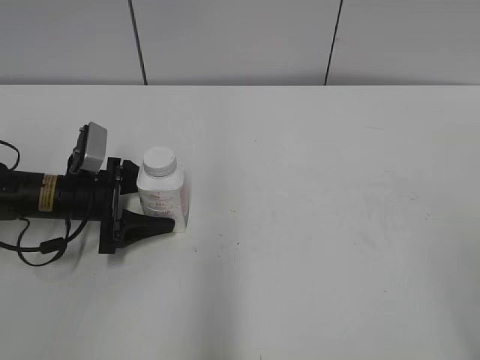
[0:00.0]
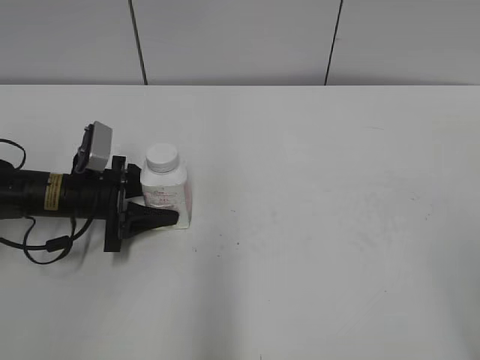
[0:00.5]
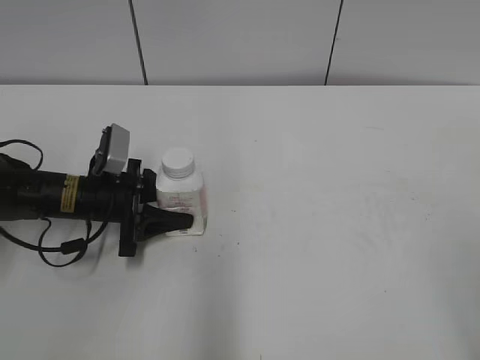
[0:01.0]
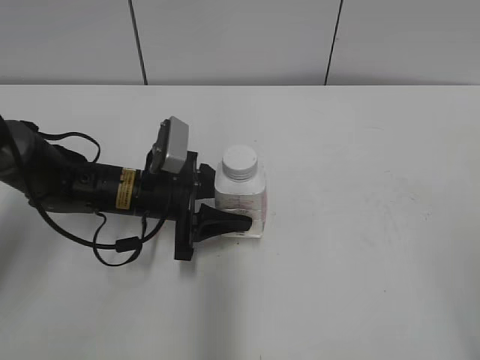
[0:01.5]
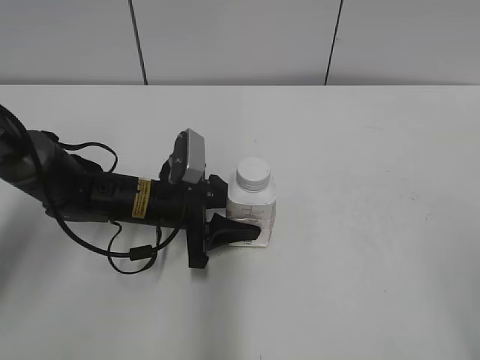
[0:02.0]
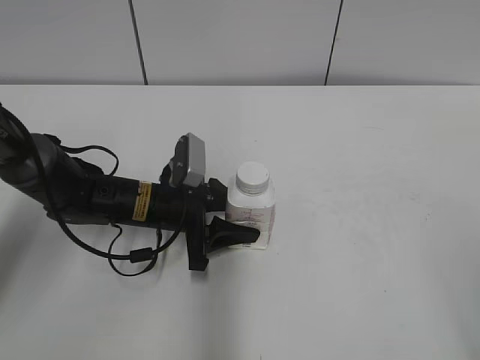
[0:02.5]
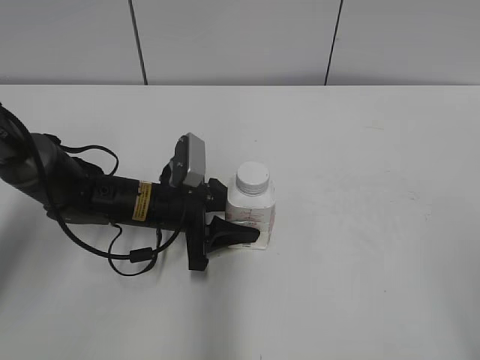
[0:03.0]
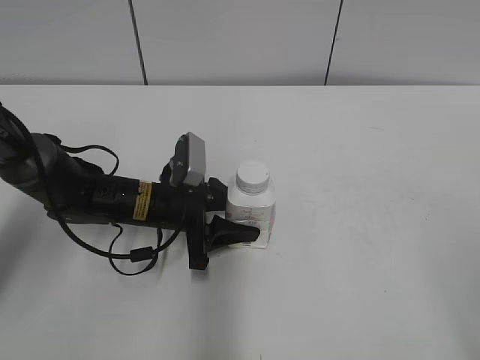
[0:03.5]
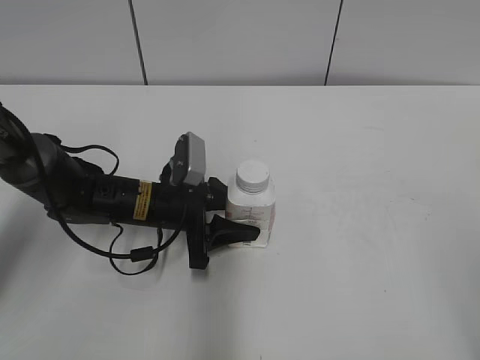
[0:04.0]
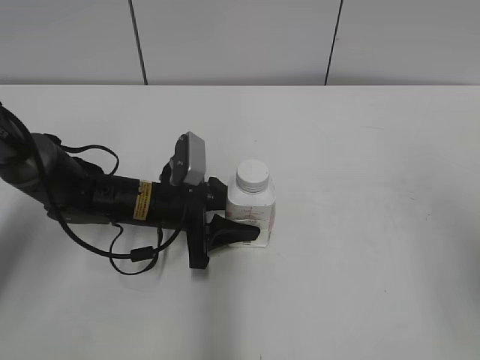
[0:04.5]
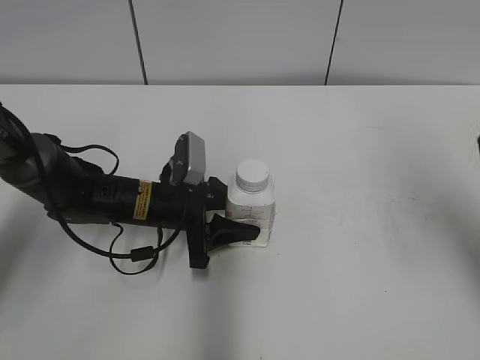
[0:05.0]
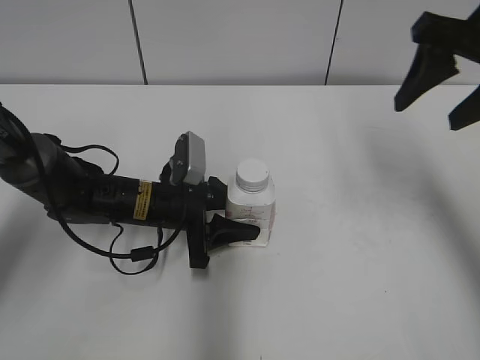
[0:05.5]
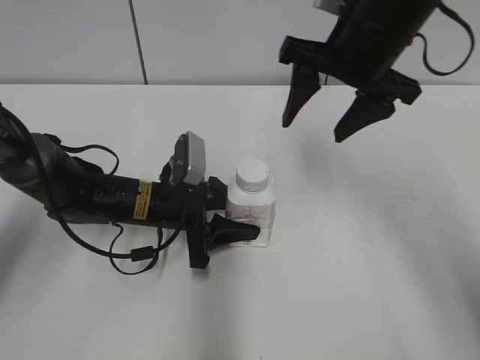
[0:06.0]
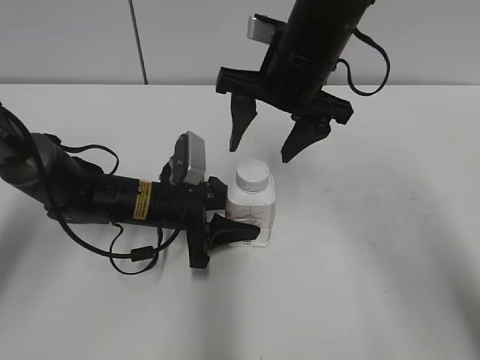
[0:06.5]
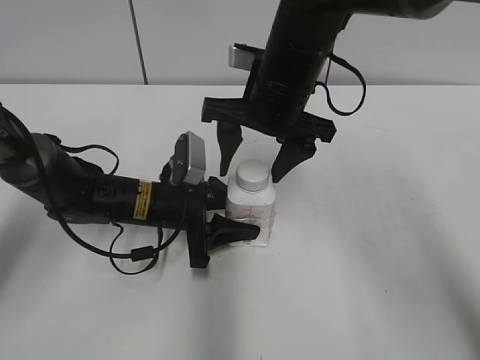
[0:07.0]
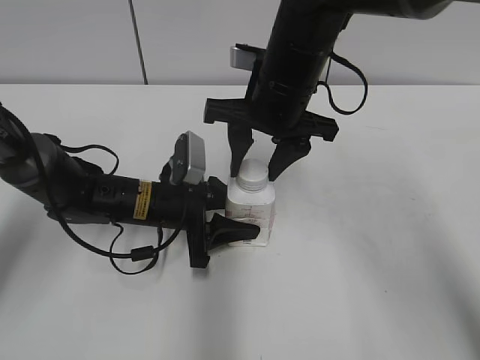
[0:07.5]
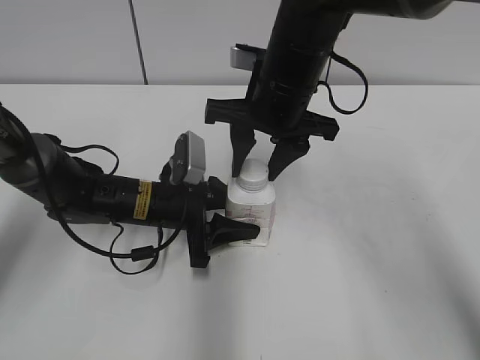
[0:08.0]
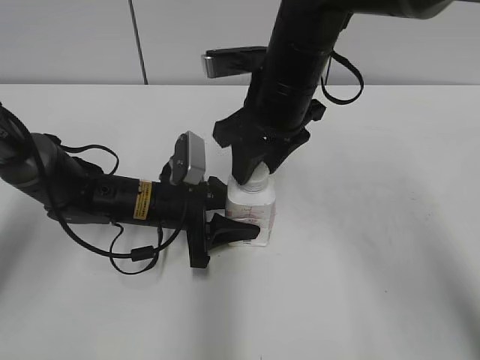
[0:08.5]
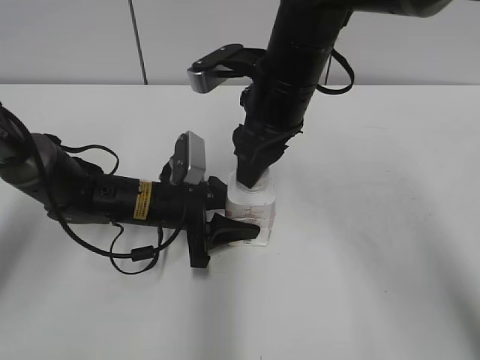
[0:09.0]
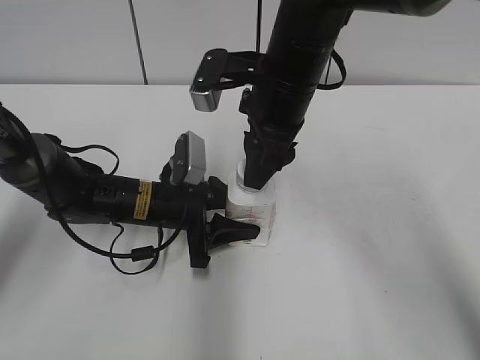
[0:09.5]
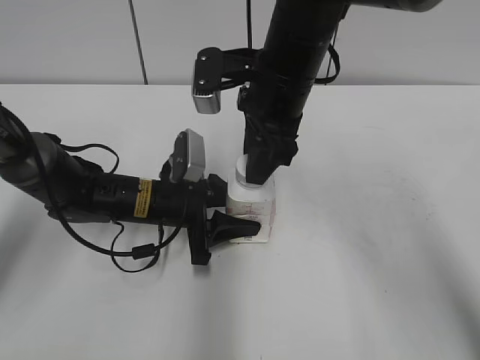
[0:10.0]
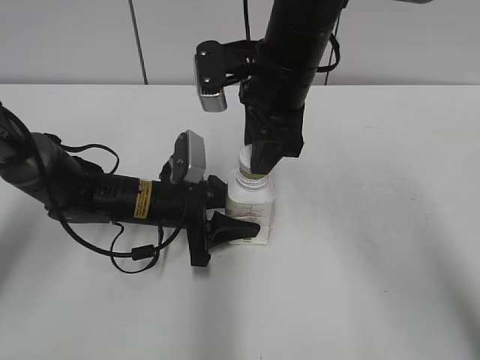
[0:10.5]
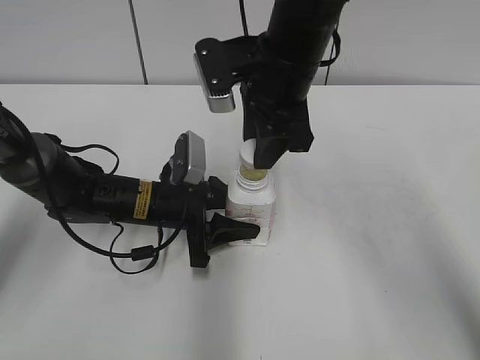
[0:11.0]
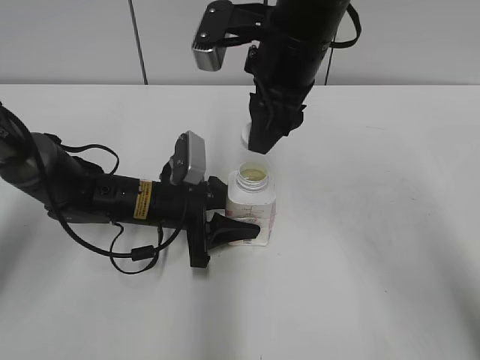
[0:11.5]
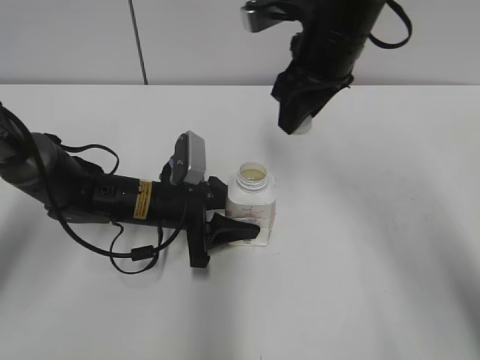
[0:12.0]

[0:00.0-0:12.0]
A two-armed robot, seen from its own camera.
Step, 0:01.0 to 0:03.0: Lift the bottle and move it to the center of the table with the left gripper.
Step, 0:03.5 to 0:11.0: Unscrew the bottle cap with the right gripper while holding the bottle with the left gripper.
0:00.0 to 0:02.0: The left gripper travels to the right by roughly 10 cm, and closes up.
0:02.0 to 0:04.0: Neither gripper changes place.
0:04.0 to 0:06.0: The right gripper travels forward and to the left by some 40 cm.
0:06.0 to 0:08.0: The right gripper heads to the left and downward, covering approximately 10 cm, and closes up.
0:10.0 to 0:12.0: The right gripper changes place by about 5 cm.

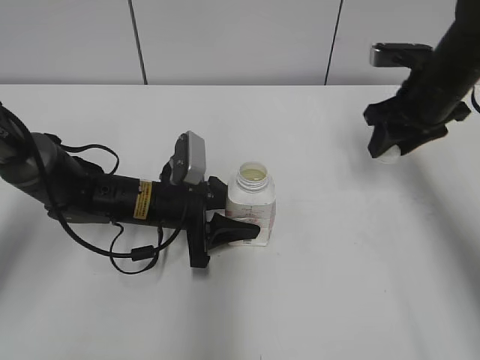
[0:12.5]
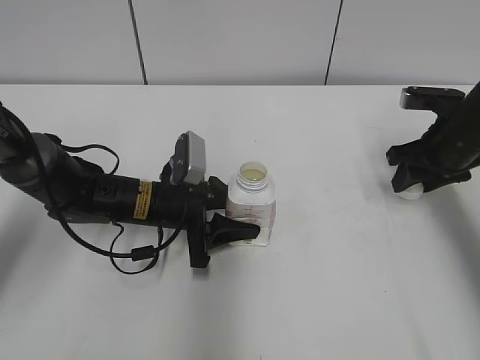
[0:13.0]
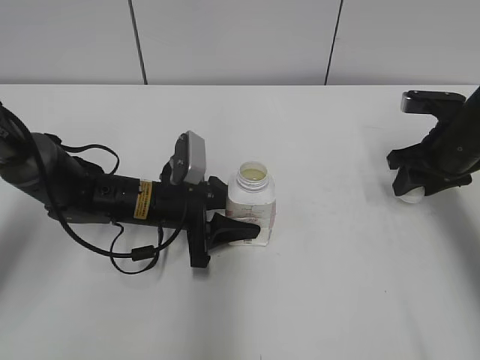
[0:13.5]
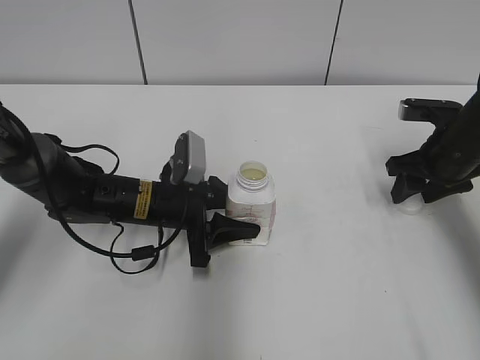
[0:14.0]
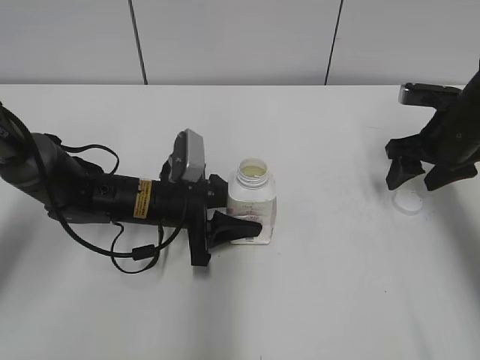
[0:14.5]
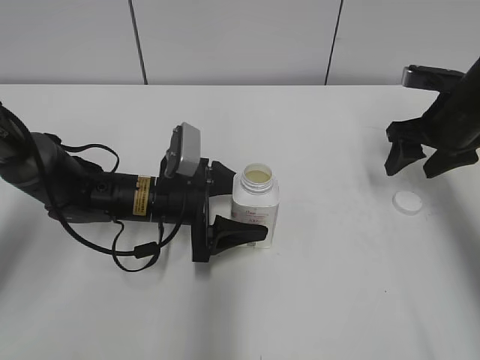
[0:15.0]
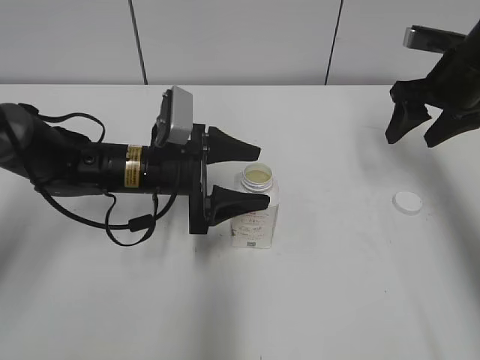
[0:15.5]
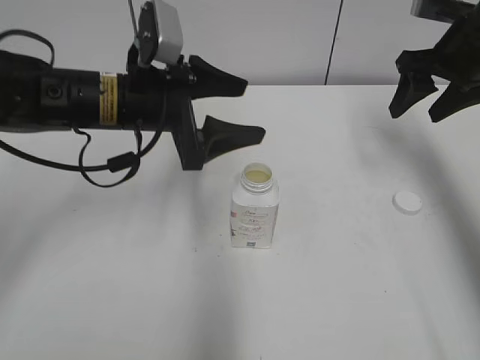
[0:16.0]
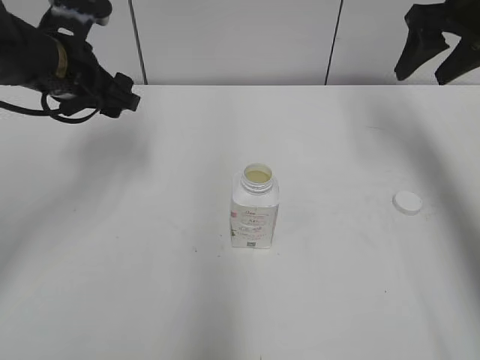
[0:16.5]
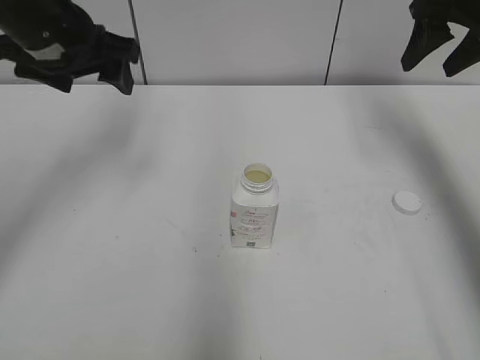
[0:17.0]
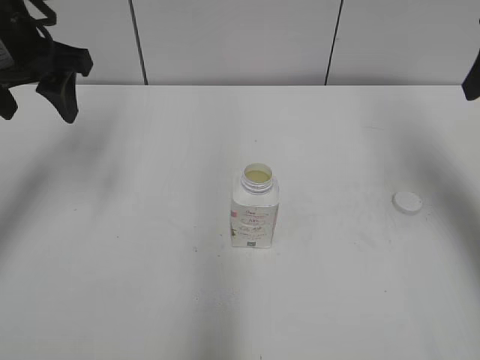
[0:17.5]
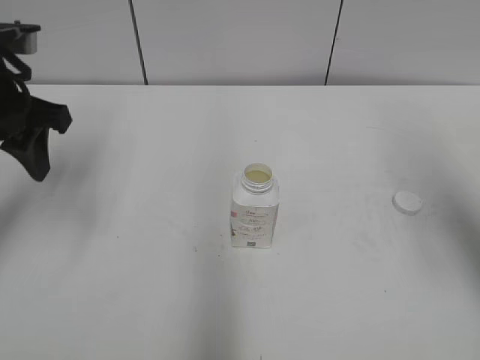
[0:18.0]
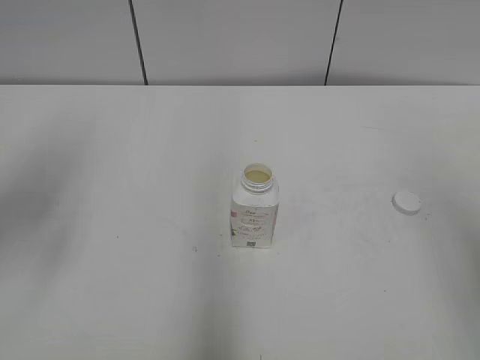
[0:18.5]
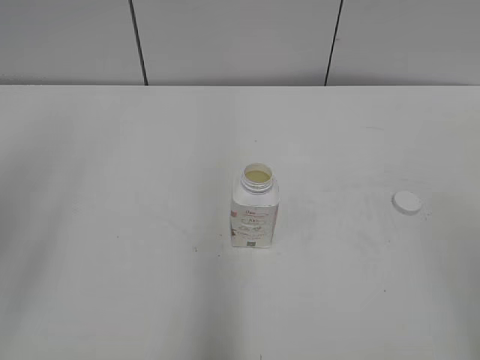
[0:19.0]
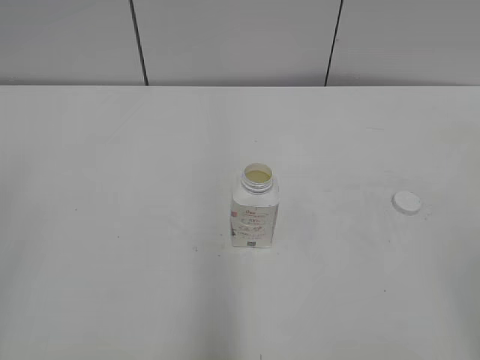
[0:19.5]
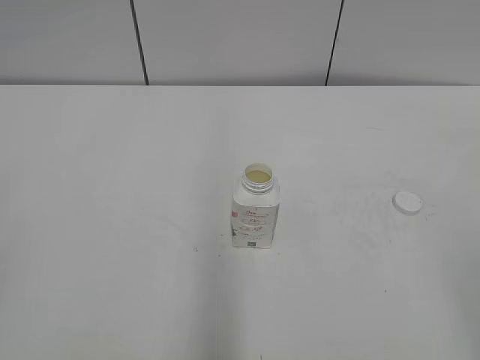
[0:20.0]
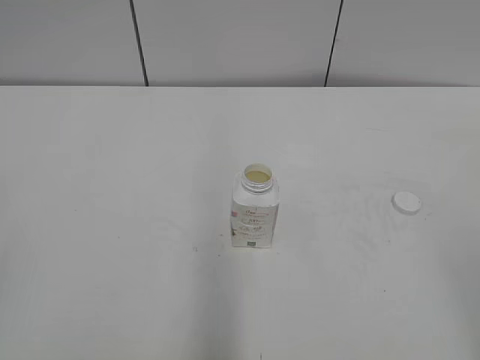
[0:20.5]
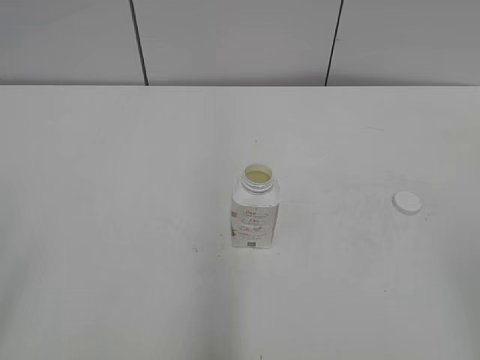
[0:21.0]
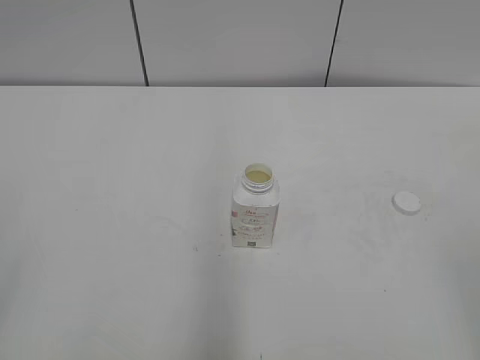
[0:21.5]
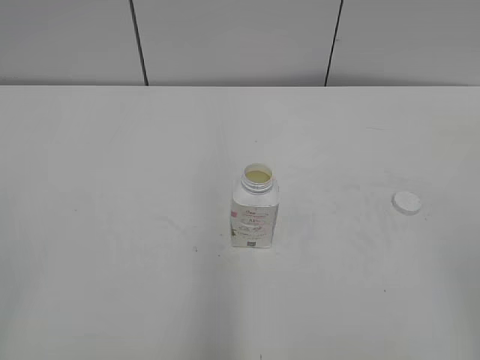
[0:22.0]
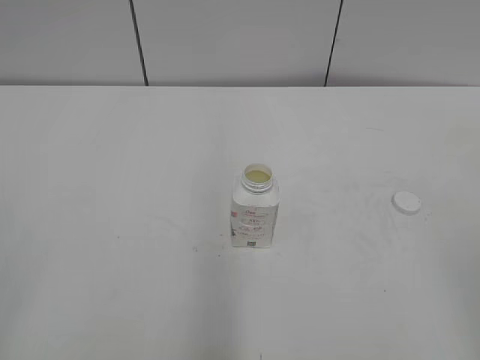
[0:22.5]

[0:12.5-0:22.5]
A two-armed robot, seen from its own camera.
Step, 0:12.5 to 0:14.0: Place the bottle cap on the table with the right gripper.
Step, 0:14.5 to 0:15.5: Place the bottle on the table with the left gripper.
0:12.5 to 0:14.5: The right gripper moves about 5 cm, and opens up.
0:14.5 to 0:16.5: The right gripper is displaced upward by about 15 cm, while the left gripper shifts about 20 cm upward and to the left, and opens its fingers.
0:16.5 to 0:18.5: The left gripper heads backward, upward and to the left, covering about 20 cm, and closes; the right gripper moves backward, about 30 cm.
0:18.5 to 0:20.5: The left gripper is displaced backward by approximately 25 cm.

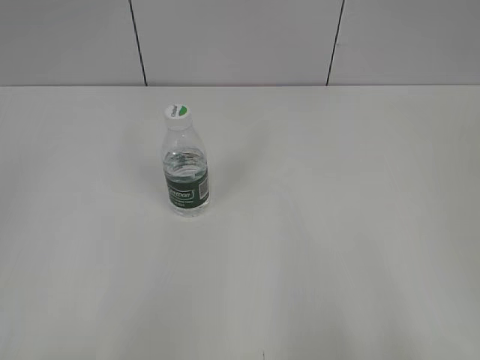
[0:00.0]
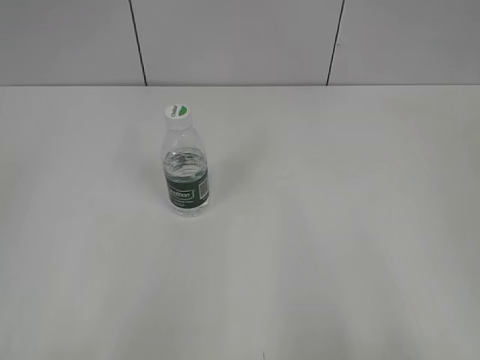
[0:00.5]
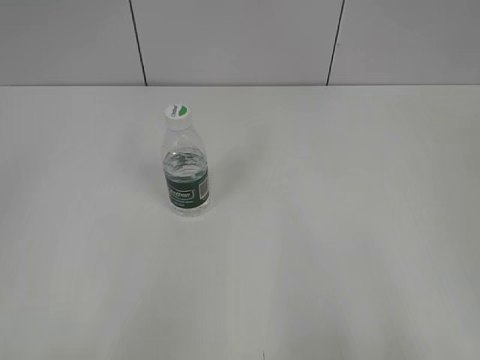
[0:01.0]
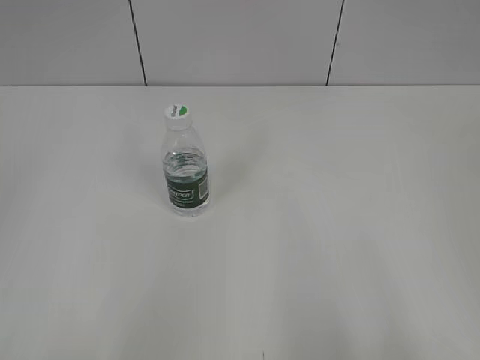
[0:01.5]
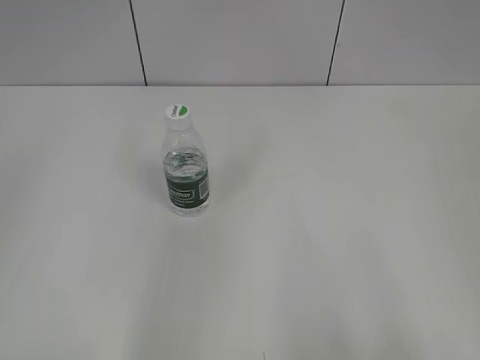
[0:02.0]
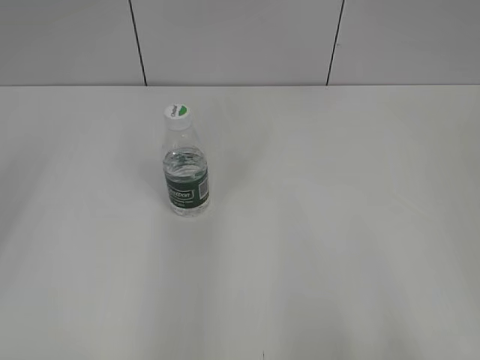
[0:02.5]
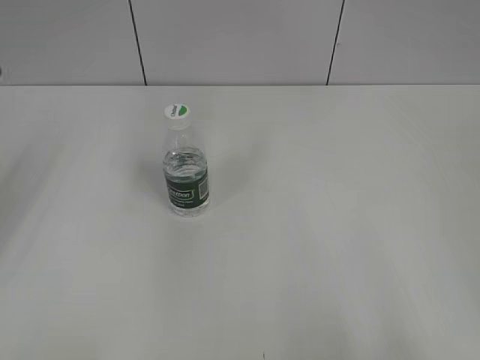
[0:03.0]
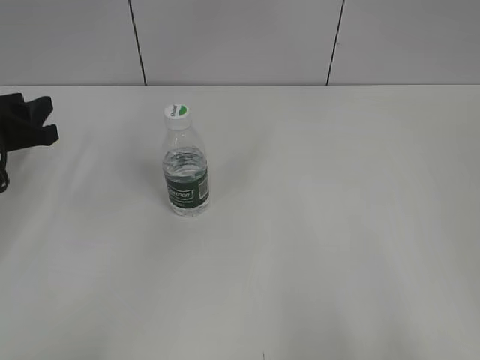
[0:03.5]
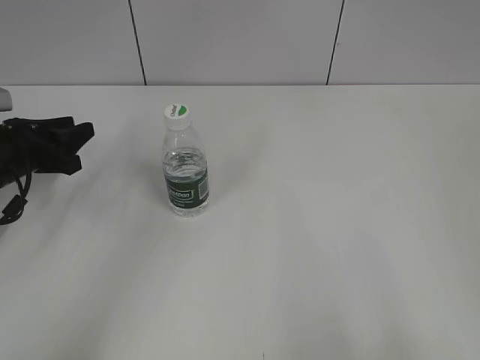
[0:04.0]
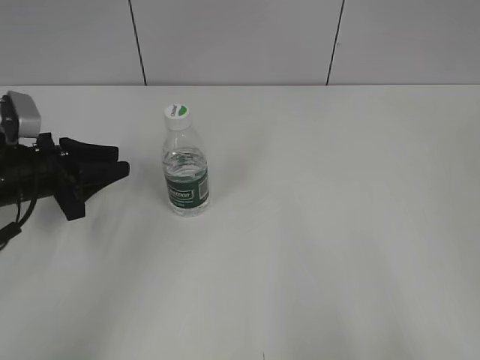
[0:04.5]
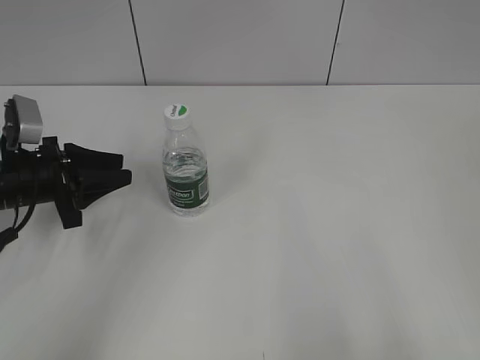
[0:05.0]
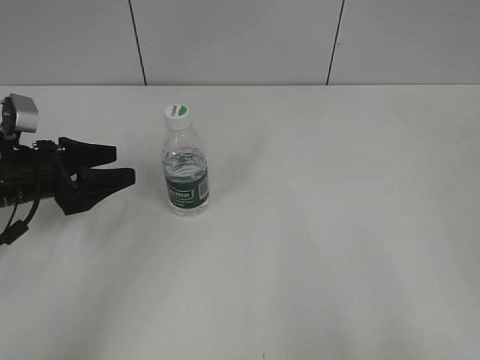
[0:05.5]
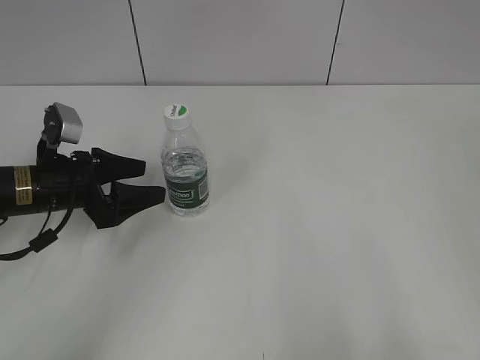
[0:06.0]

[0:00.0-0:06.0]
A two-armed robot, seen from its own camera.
0:02.0 to 0:04.0: The left gripper heads forward and downward, covering some 35 cm.
0:04.0 to 0:06.0: The left gripper shifts about 5 cm to the right, and opens.
